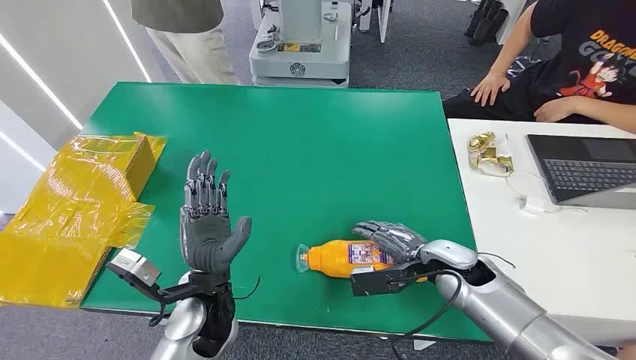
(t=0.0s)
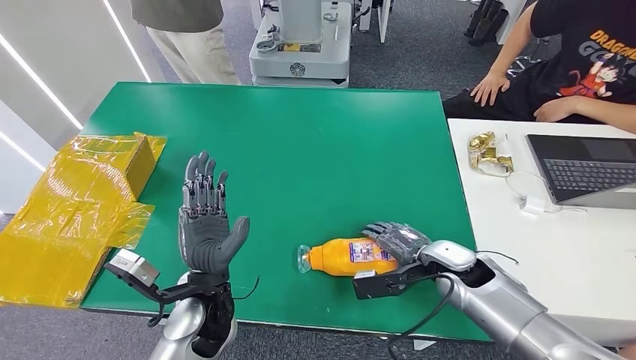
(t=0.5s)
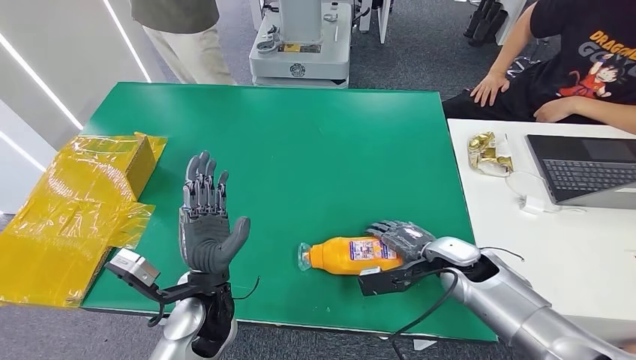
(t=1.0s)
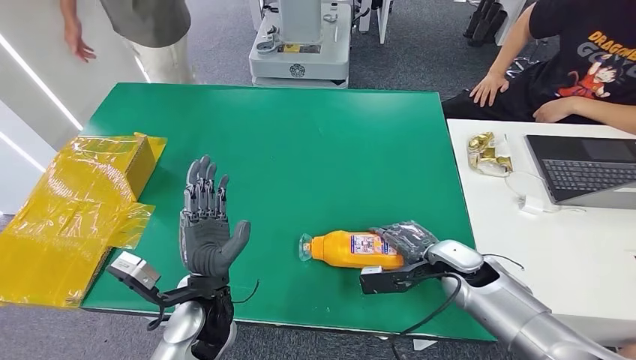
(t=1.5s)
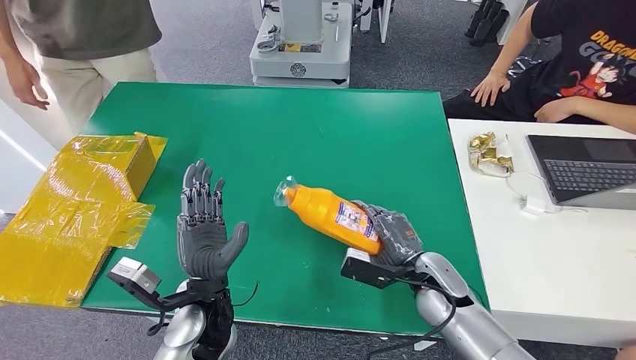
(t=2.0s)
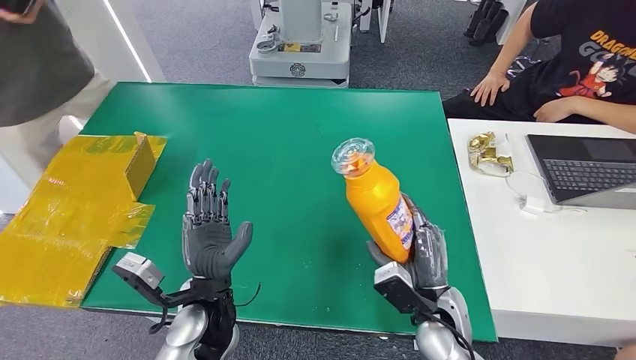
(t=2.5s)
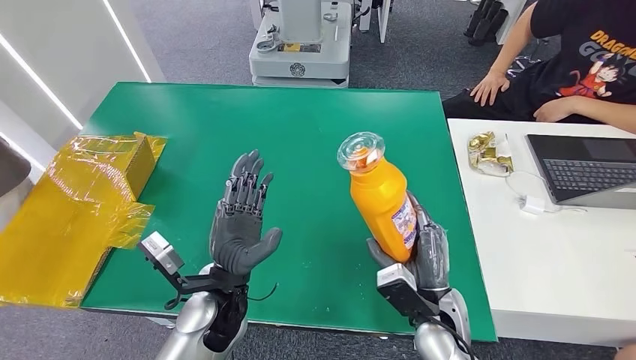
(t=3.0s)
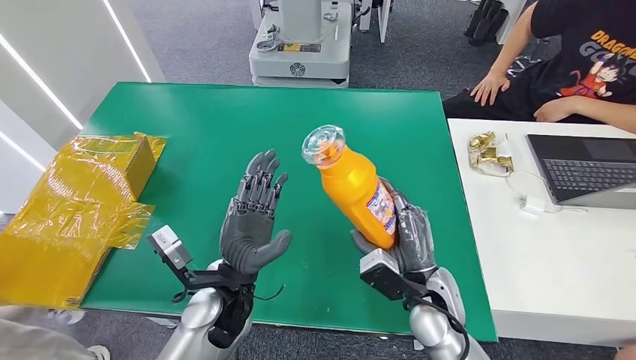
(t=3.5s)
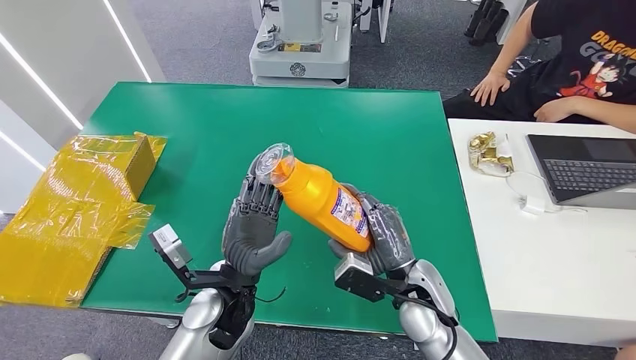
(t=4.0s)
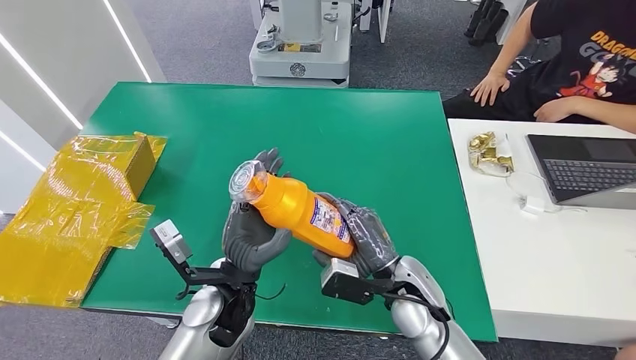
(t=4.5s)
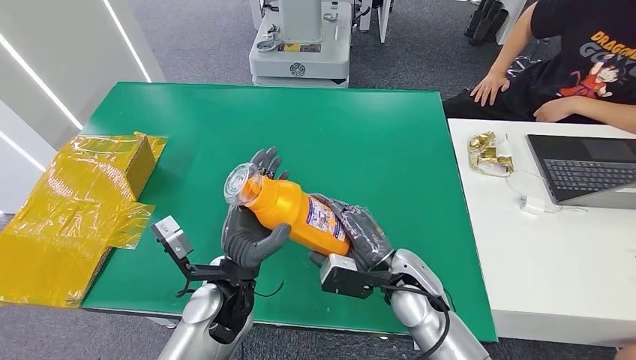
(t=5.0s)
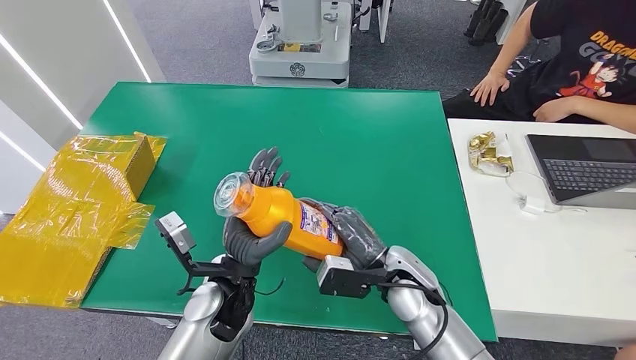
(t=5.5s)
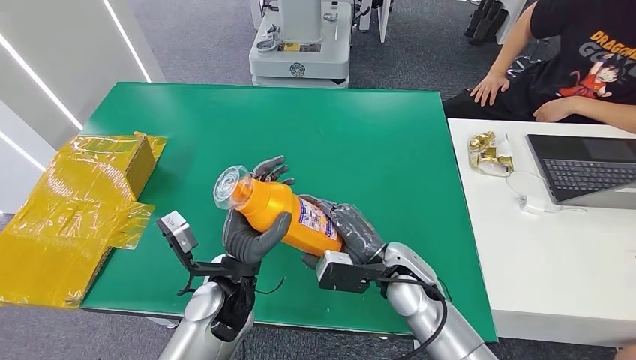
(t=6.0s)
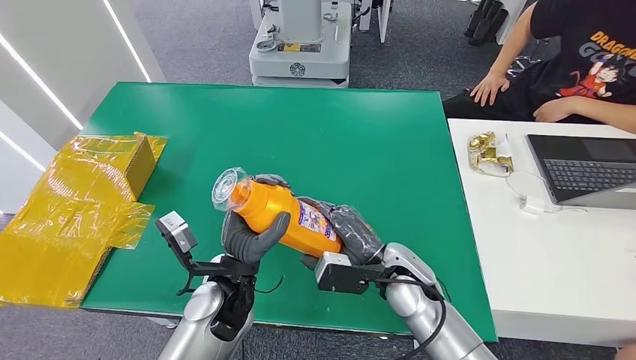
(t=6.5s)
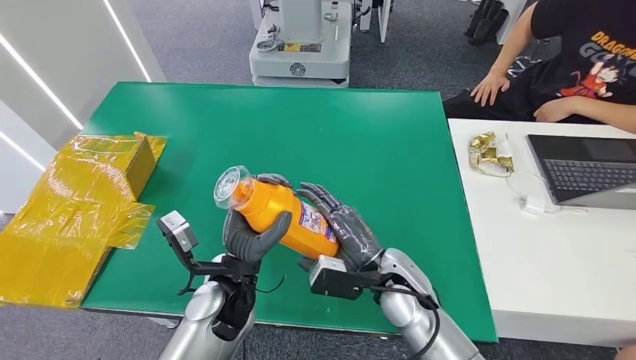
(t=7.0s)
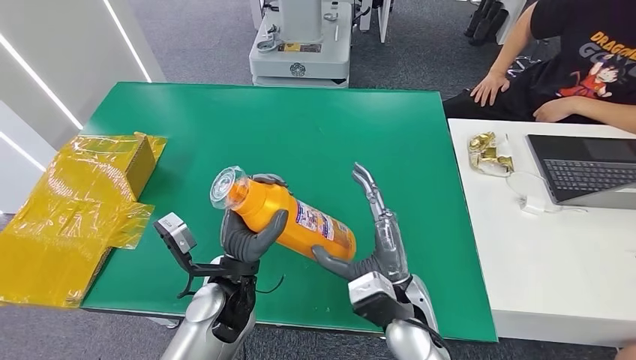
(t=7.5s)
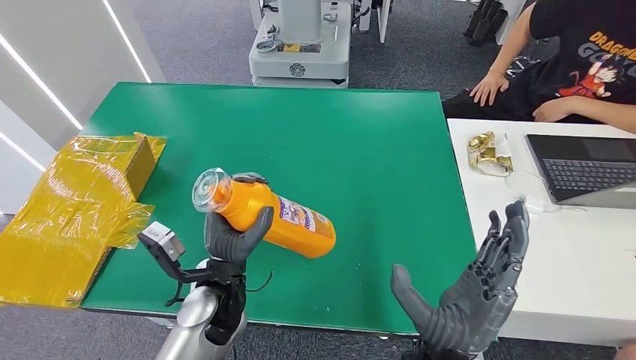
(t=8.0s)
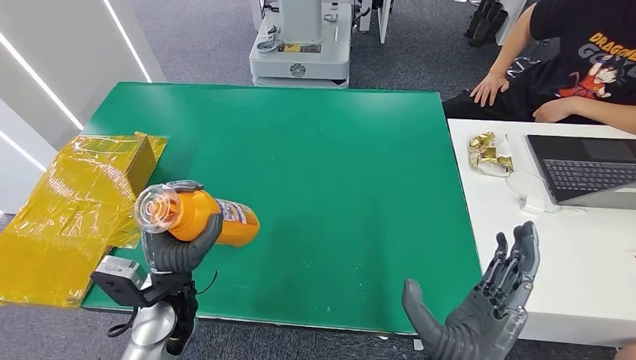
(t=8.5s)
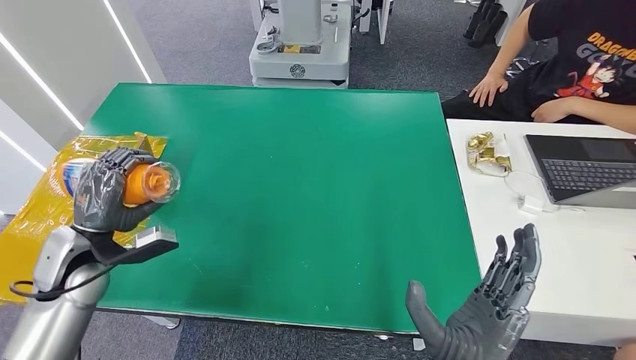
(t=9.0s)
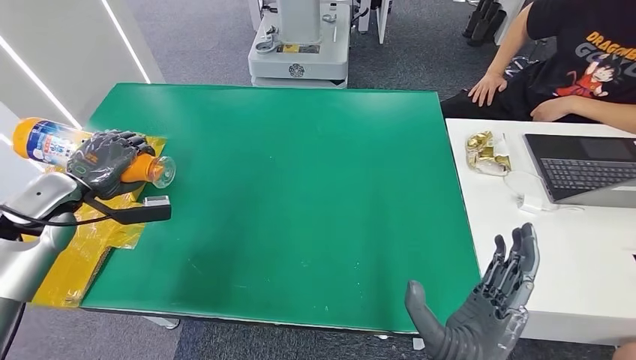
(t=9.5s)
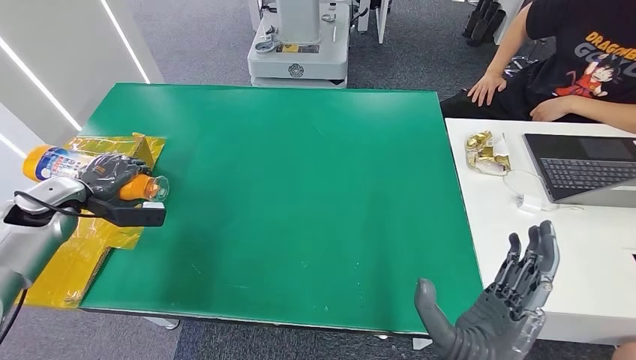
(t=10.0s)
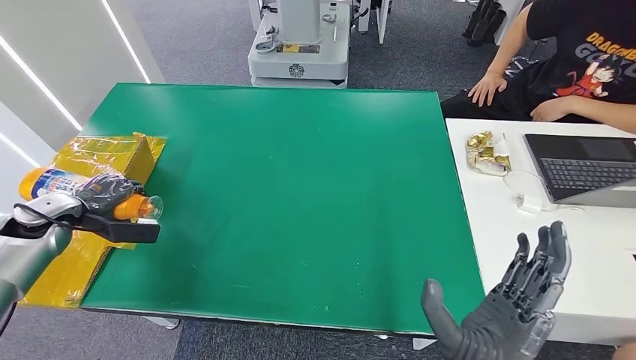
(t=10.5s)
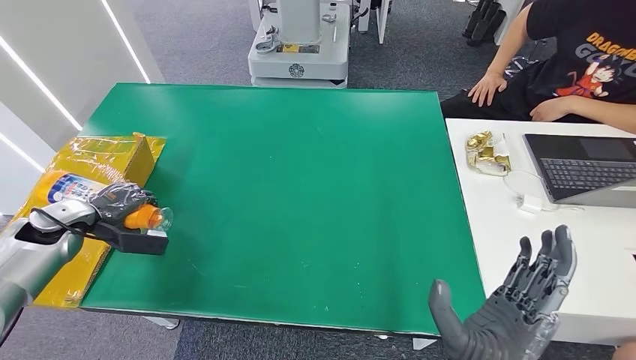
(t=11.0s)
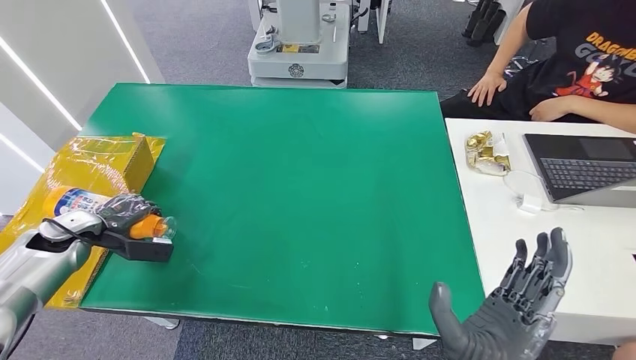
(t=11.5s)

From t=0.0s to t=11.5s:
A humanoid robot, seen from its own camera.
Step, from t=0.0s to t=5.0s: Pick up the bottle from the table.
From t=6.0s to t=7.5s: The right hand moves backward, roughly 5 cm.
From t=9.5s to t=11.5s: The left hand moves downward, some 10 cm.

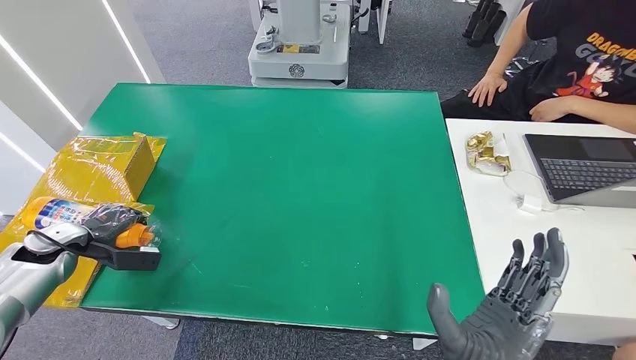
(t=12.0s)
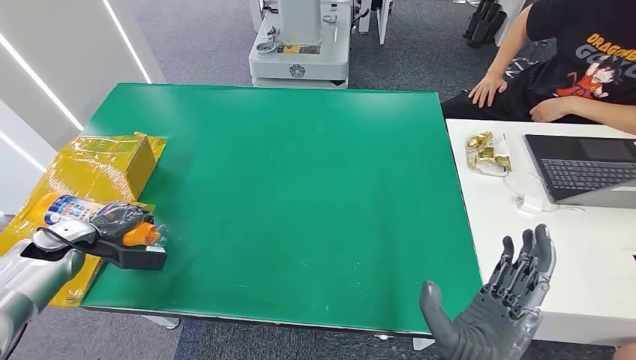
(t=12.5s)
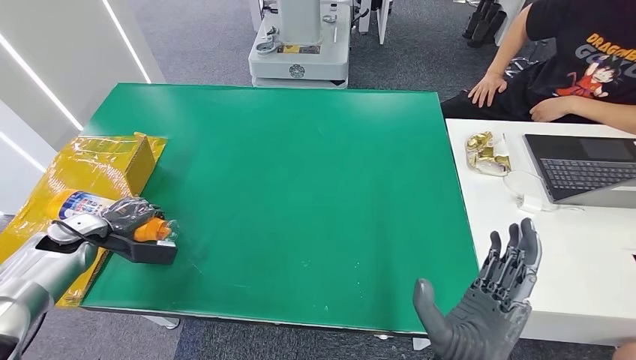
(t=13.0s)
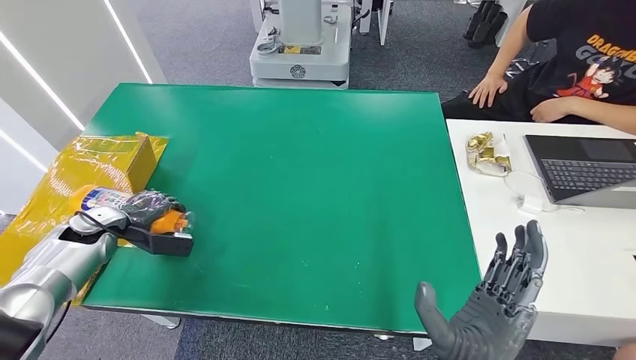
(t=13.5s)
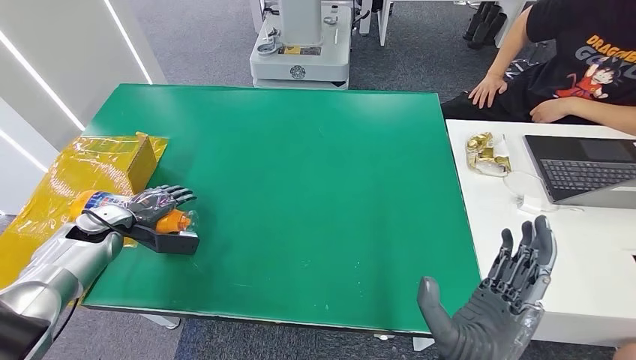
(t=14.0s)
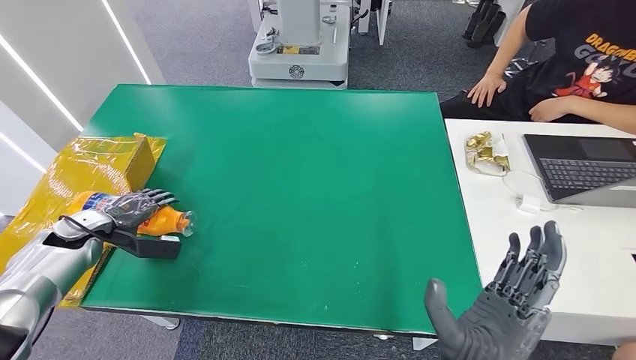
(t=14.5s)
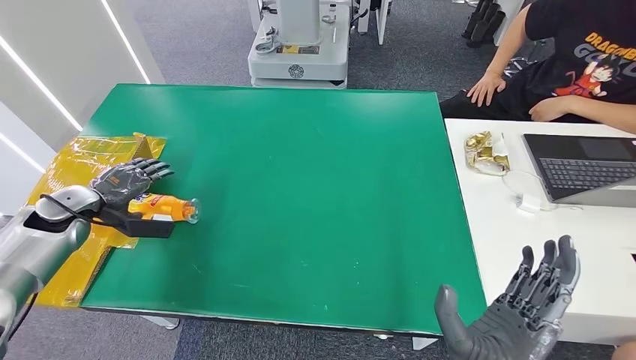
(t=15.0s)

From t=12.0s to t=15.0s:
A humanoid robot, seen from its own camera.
Step, from t=12.0s to t=15.0s: Turn the bottle to the front side.
From t=12.0s to t=13.5s: The left hand shifts some 5 cm to the right.
From t=13.5s to t=15.0s: The left hand ends up some 5 cm from where it was.
